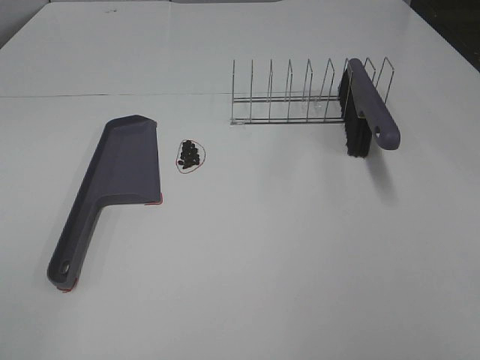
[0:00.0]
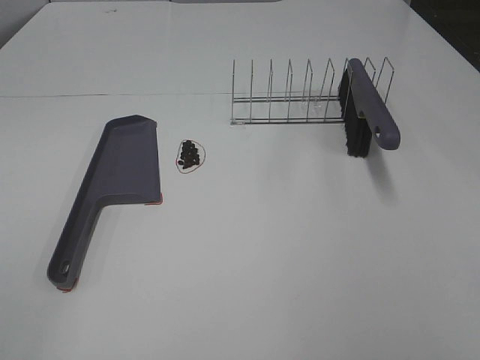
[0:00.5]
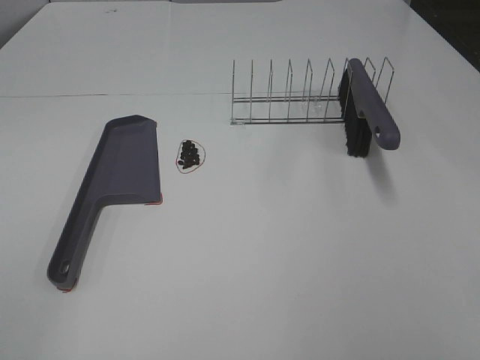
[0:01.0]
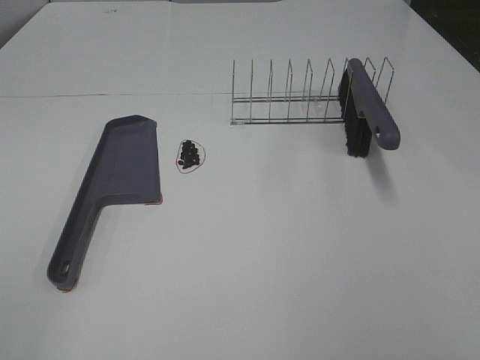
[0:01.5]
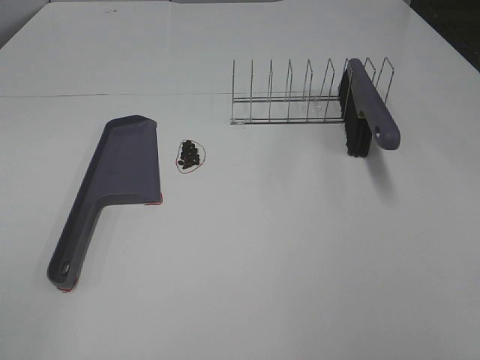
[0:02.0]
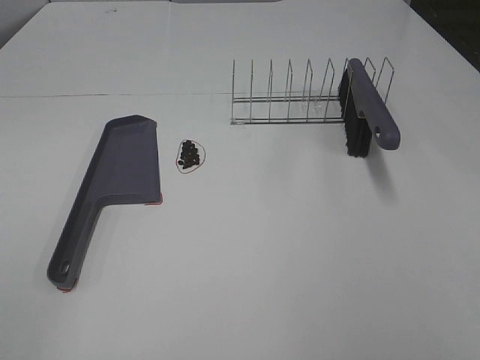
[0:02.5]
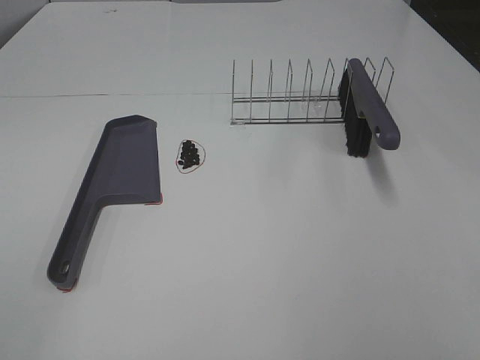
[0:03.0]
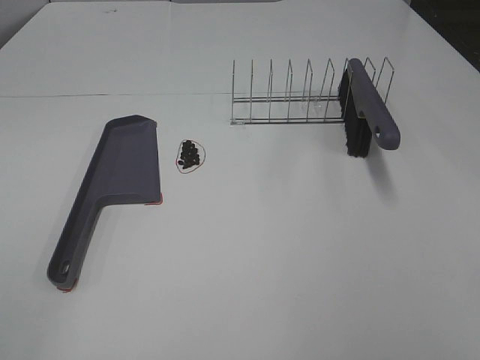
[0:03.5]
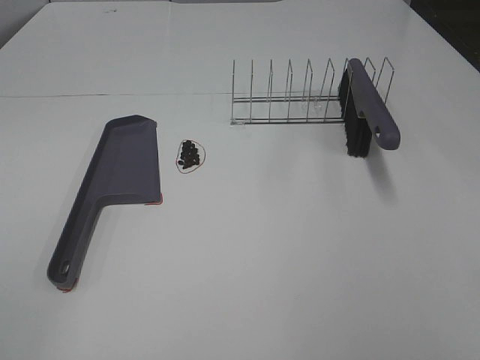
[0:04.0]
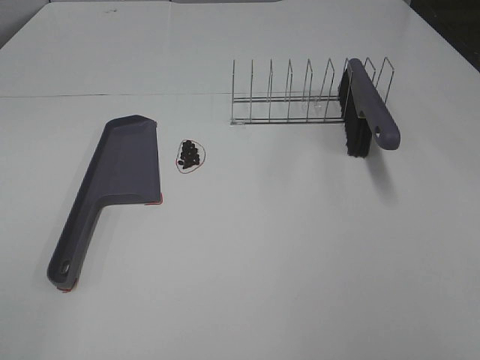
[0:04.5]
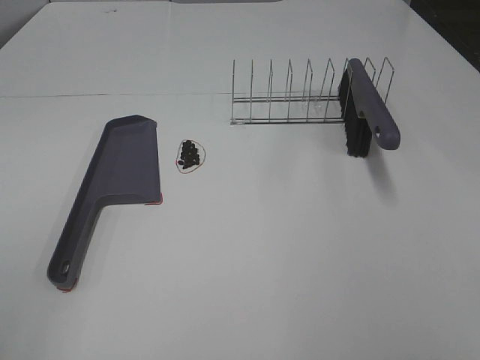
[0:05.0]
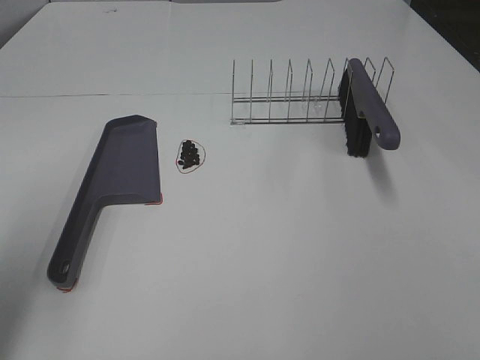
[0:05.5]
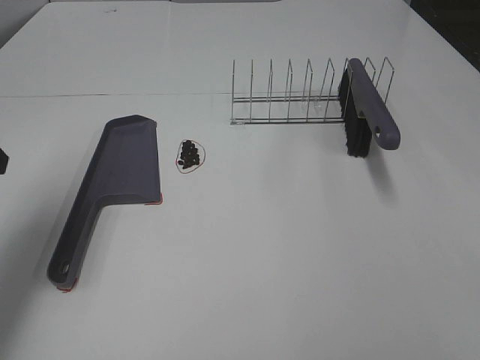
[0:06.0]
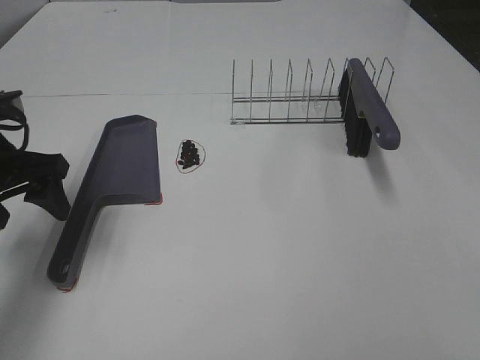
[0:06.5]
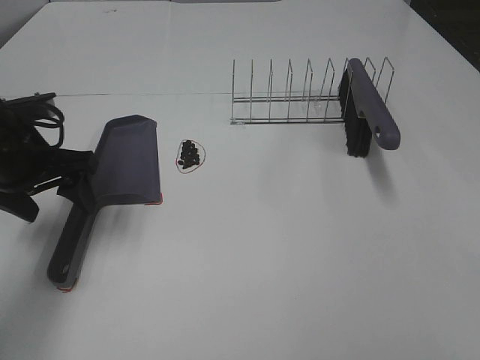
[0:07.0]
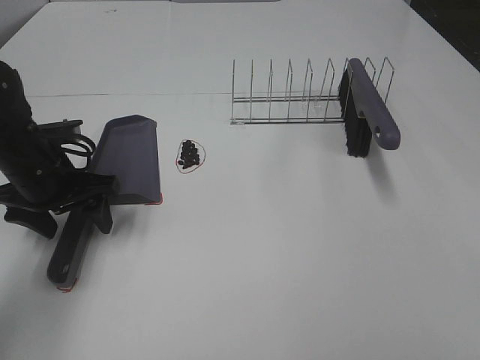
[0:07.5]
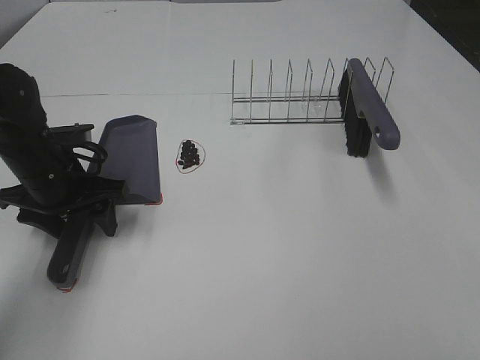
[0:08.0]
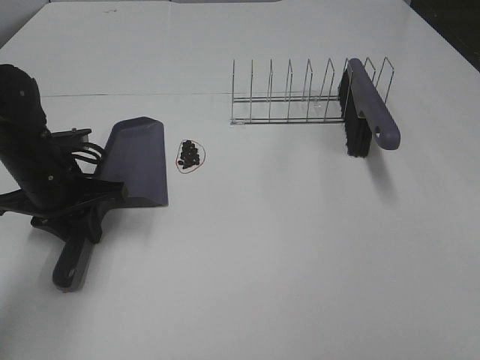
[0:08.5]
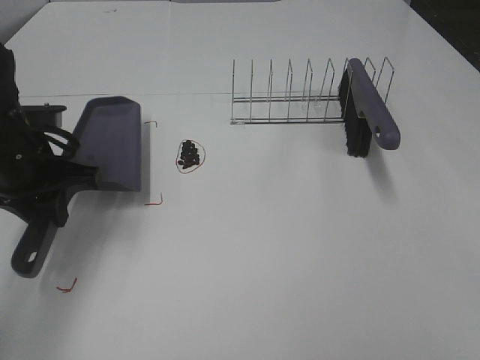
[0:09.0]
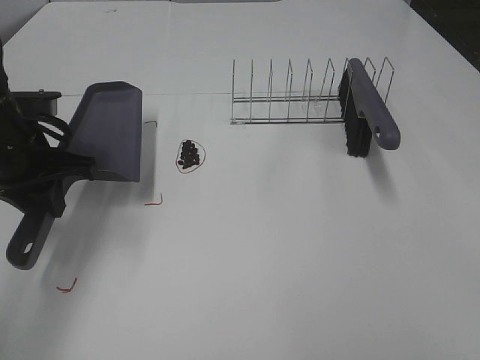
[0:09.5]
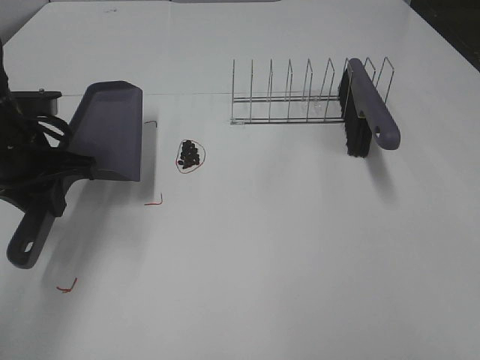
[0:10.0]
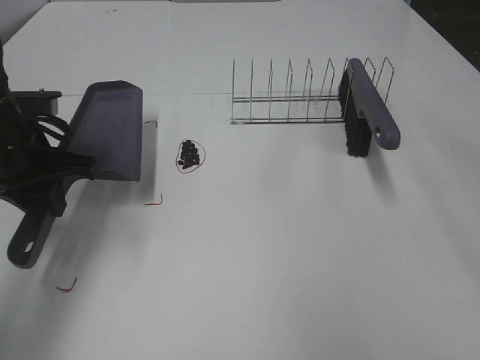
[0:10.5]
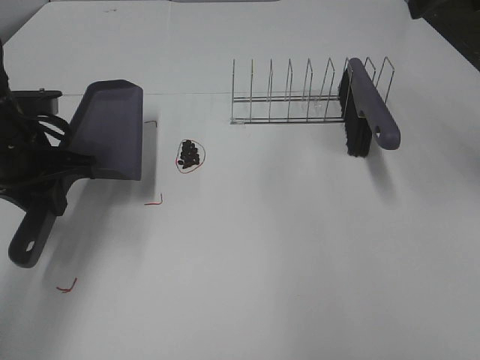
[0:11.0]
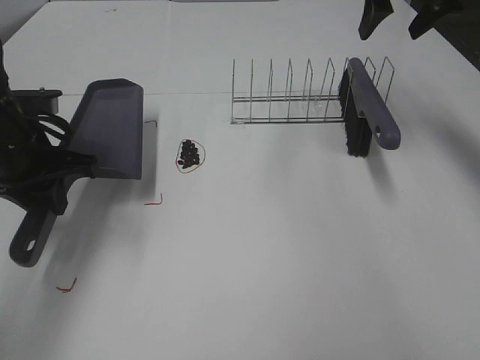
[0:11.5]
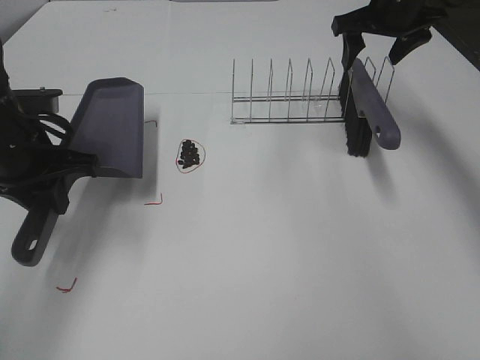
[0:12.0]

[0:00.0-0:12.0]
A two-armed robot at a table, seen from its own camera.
Task of the whole recording: Sweep Coffee Bean.
Step, 0:00.0 to 0:08.0: Left hand: grab the dustpan.
0:00.0 to 0:04.0: Neither gripper changes place.
0:04.0 to 0:06.0: The left gripper goes approximately 25 cm forward.
0:06.0 to 0:08.0: The left gripper shifts approximately 15 cm downward, to the right and forward.
0:08.0 to 0:10.0: The left gripper travels upward by about 5 cm, and closes up.
0:10.0 to 0:12.0: The right gripper goes some 50 cm forward.

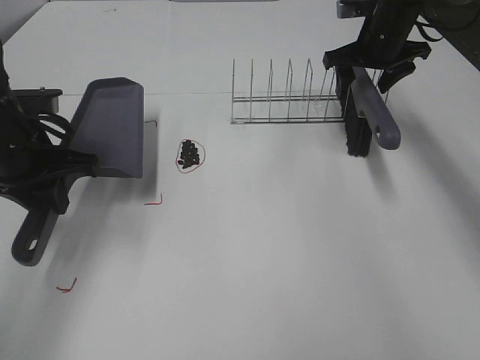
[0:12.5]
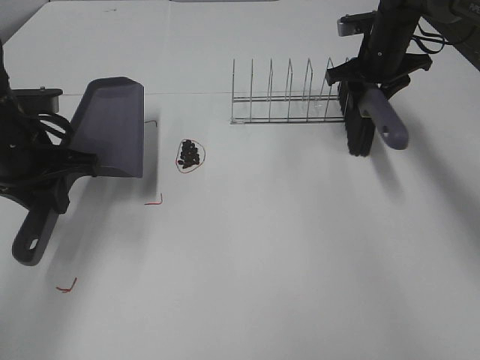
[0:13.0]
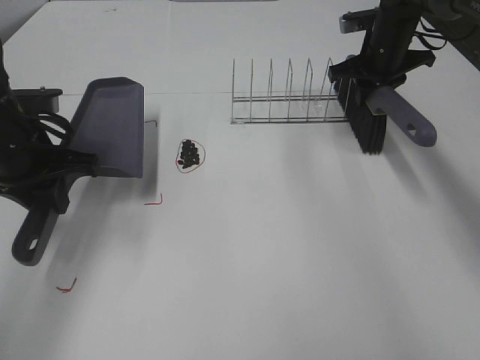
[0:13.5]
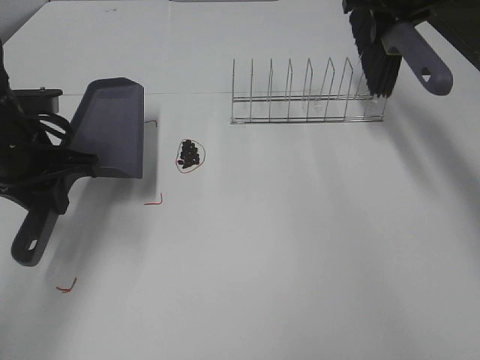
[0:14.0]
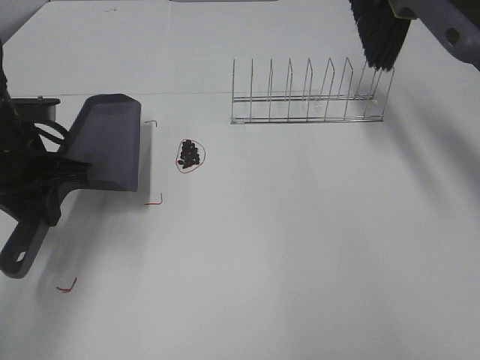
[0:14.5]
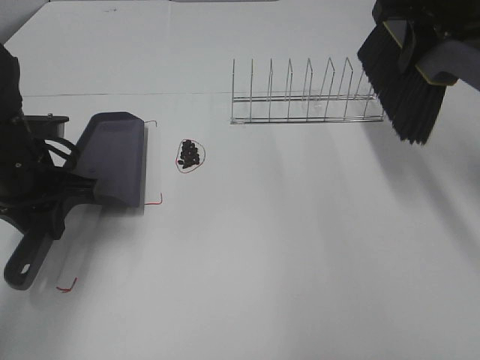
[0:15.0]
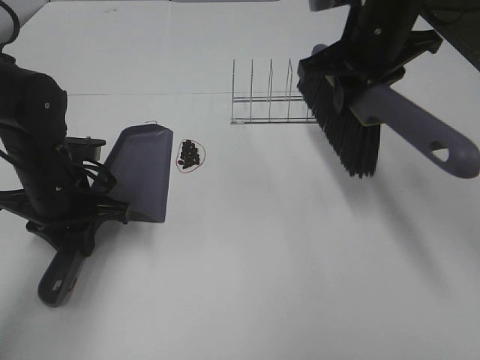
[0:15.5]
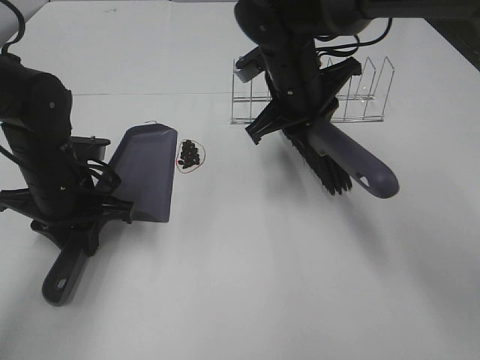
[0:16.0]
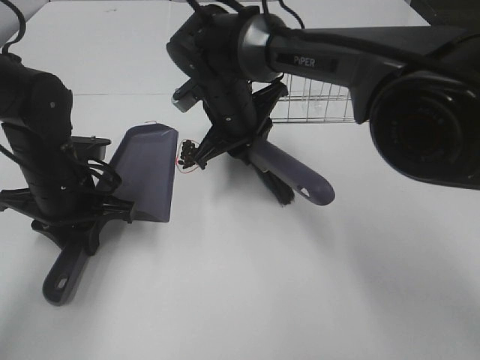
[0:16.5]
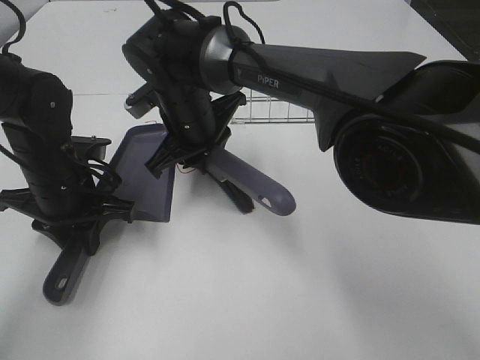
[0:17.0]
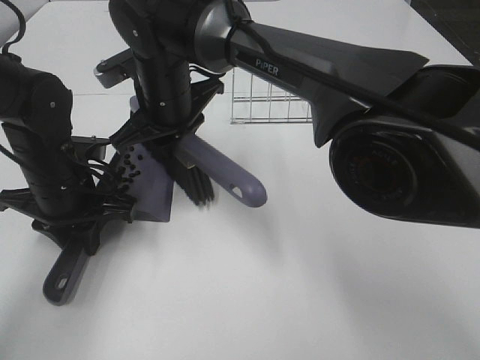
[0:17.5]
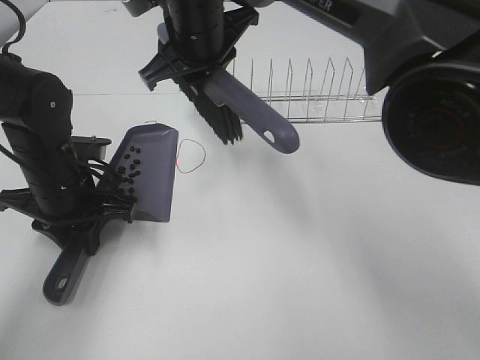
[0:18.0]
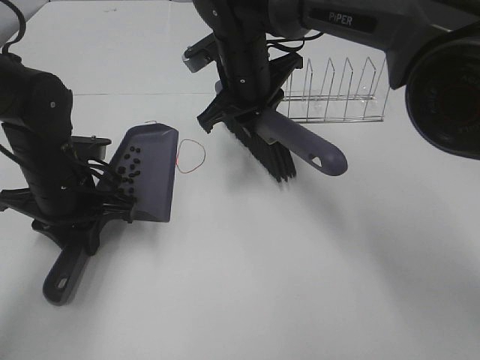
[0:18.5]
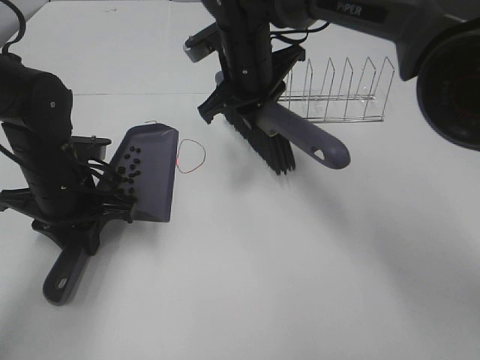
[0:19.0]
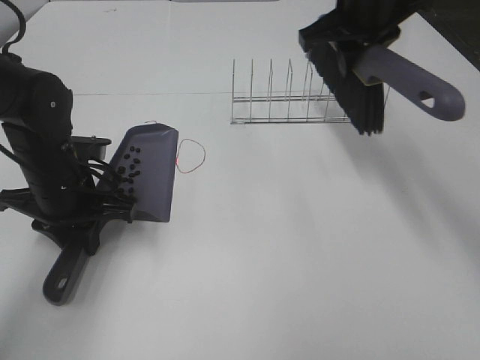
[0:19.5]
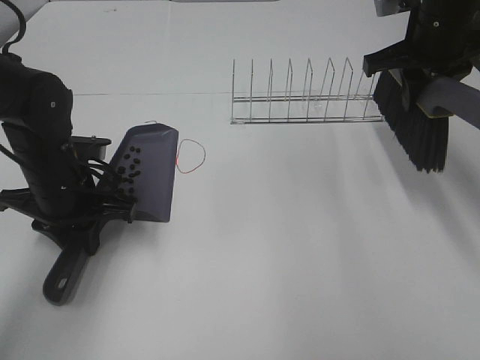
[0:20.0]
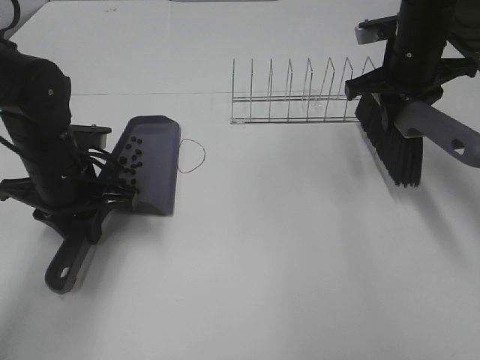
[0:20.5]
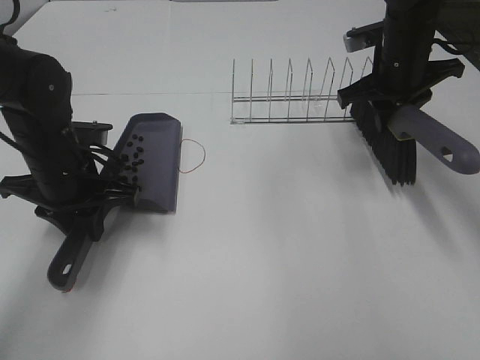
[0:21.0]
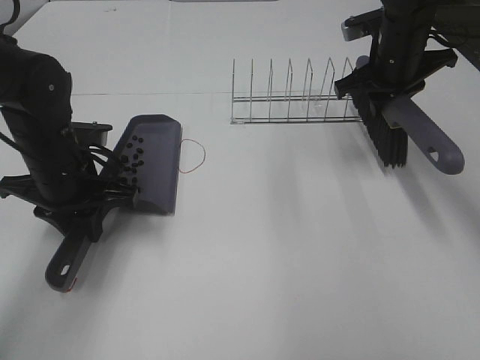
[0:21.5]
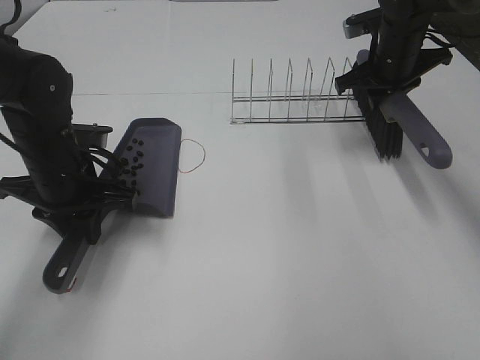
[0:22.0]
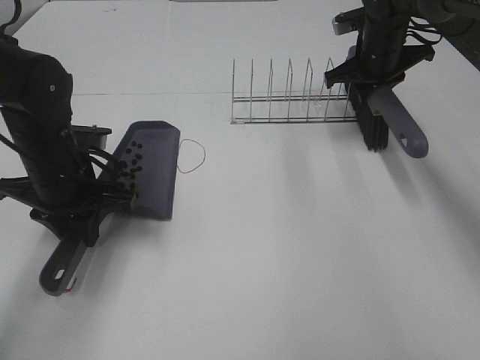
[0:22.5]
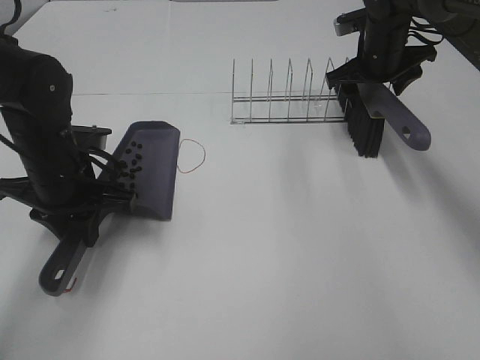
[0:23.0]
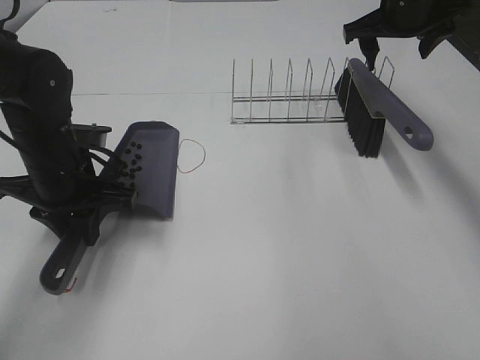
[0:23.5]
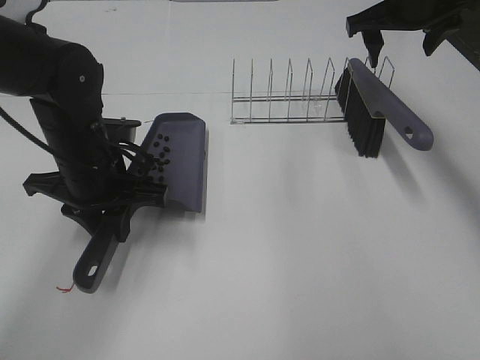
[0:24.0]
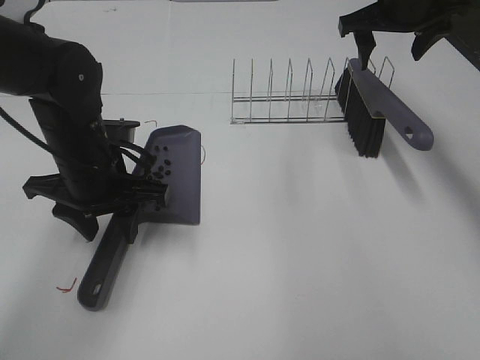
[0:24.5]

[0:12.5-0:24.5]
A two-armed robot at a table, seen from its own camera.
Task of the whole recording: Sweep Coffee Bean.
Step, 0:12.5 to 0:15.5: Left hand: move the dustpan to the left side of the coffee beans.
Step, 0:13.5 to 0:17.5: Right hand:sweep the coffee beans into the dustpan.
Step, 0:18.0 to 0:23.0: Right hand:place the broom on the rack.
0:12.5 to 0:14.5: The right gripper moves upward and backward, approximately 20 cm, and closes up.
0:14.5 to 0:16.5: The right gripper is displaced to the left and downward by some 35 cm; the left gripper moves downward, some 5 cm.
0:16.5 to 0:18.5: The right gripper heads upward, covering about 5 cm.
0:18.5 to 0:20.5: The right gripper shifts about 20 cm to the right.
0:20.5 to 0:22.5: The right gripper moves forward, roughly 10 cm.
0:22.5 to 0:24.5: The left gripper opens. Meanwhile the right gripper moves upward, roughly 10 cm, and opens up.

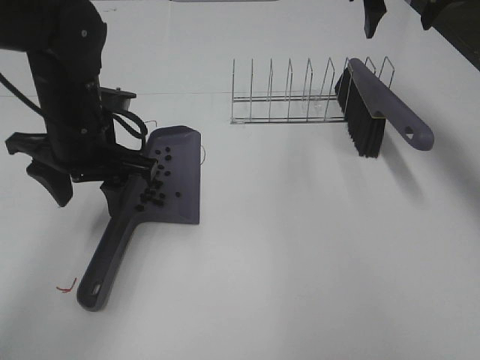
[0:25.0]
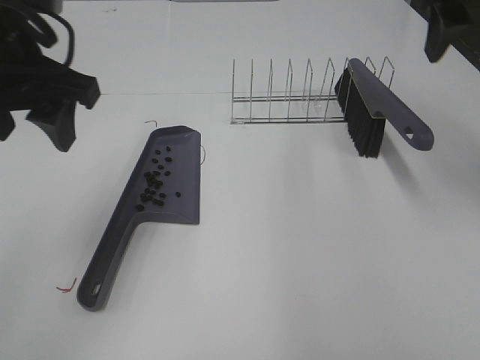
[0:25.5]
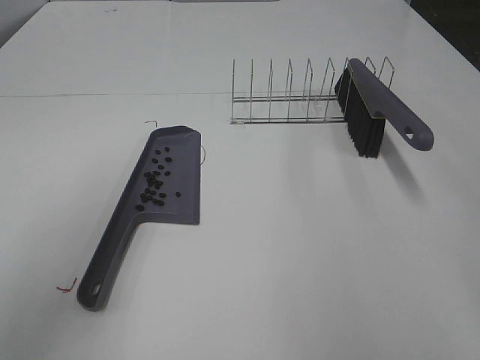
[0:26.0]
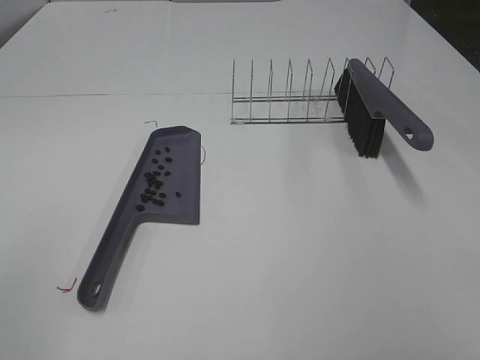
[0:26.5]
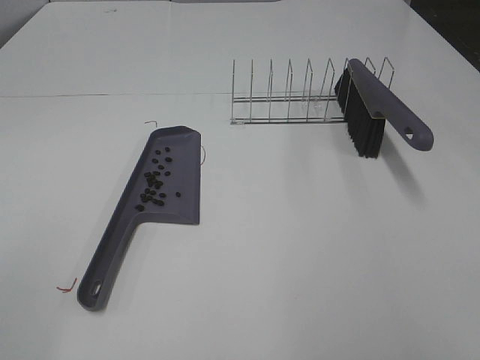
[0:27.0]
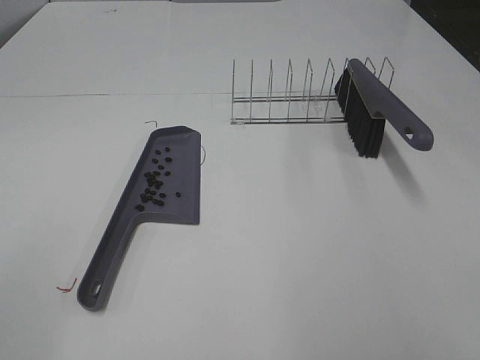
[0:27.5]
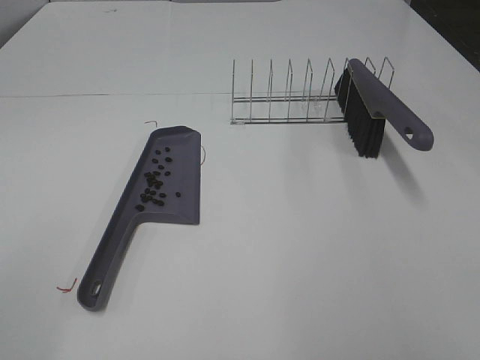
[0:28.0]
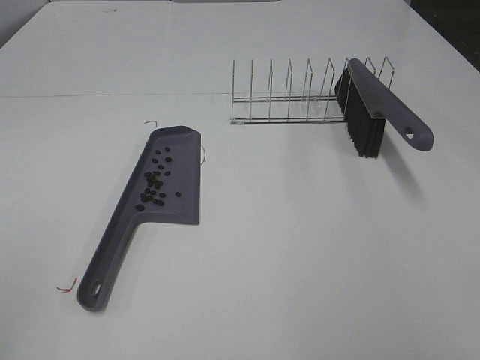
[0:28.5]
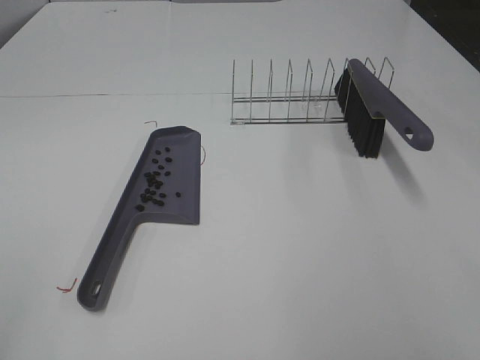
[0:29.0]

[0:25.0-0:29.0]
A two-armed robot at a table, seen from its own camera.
Task of the whole recording: Sweep Coffee Bean.
0:25.0 to 0:27.0: The left gripper heads backward and to the left, covering roughly 35 cm. Meanwhile the right gripper shifts roughly 40 cm backward.
